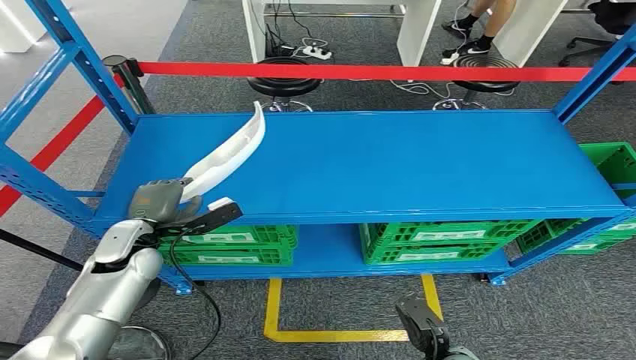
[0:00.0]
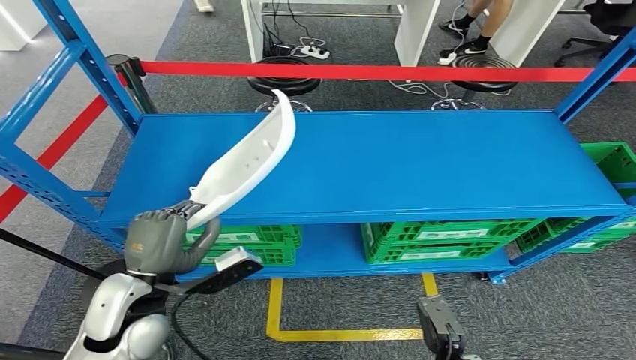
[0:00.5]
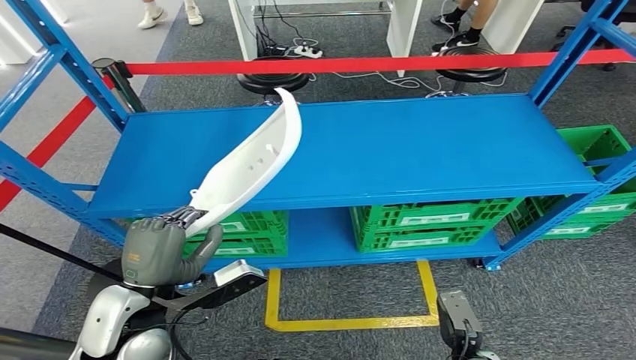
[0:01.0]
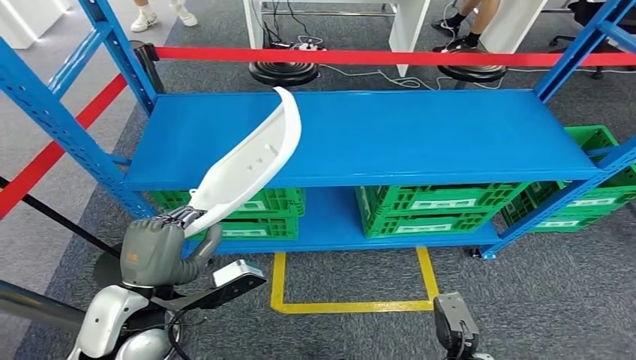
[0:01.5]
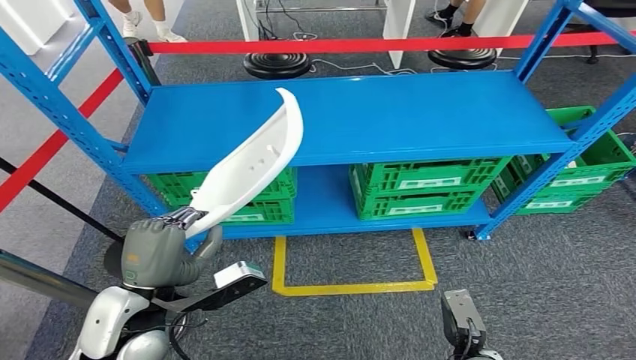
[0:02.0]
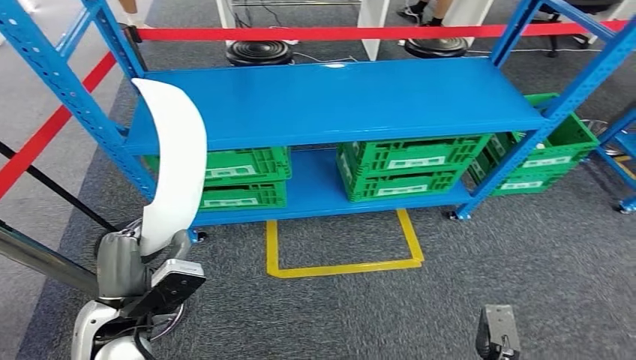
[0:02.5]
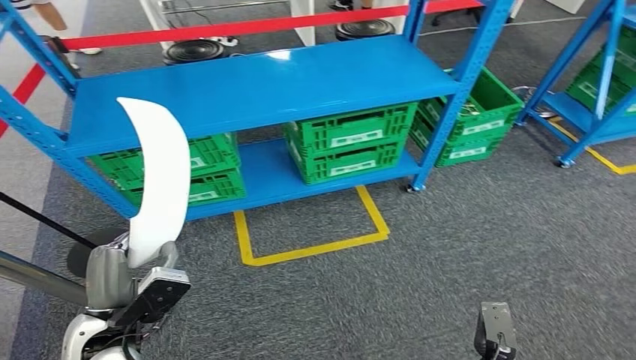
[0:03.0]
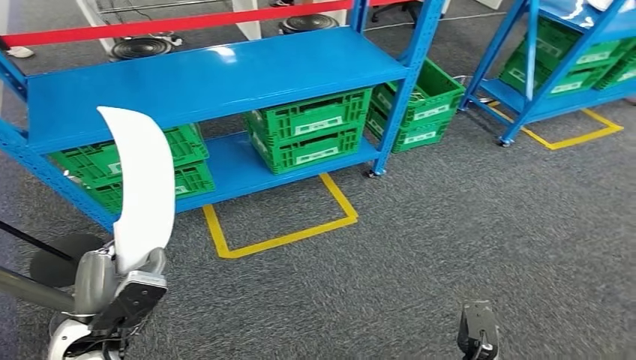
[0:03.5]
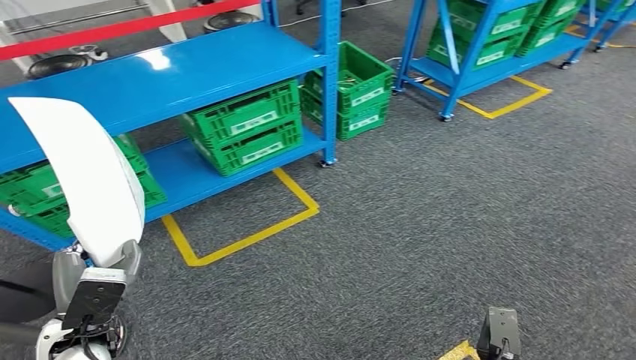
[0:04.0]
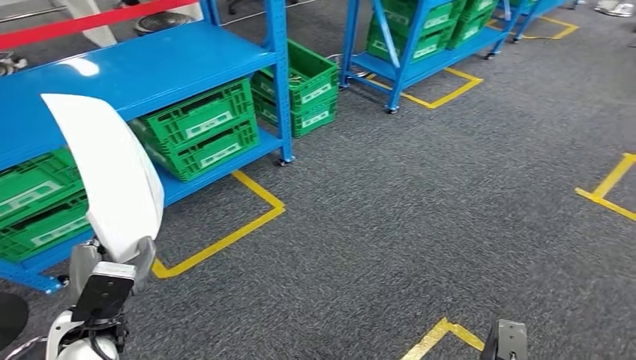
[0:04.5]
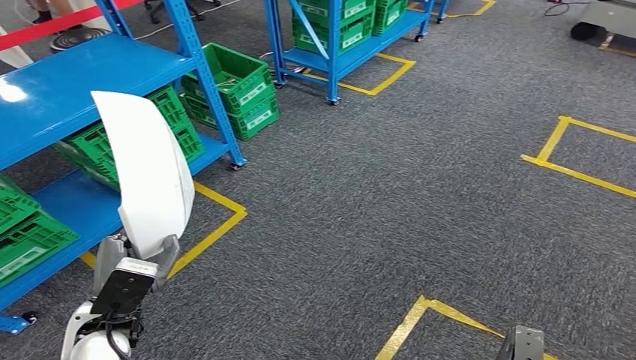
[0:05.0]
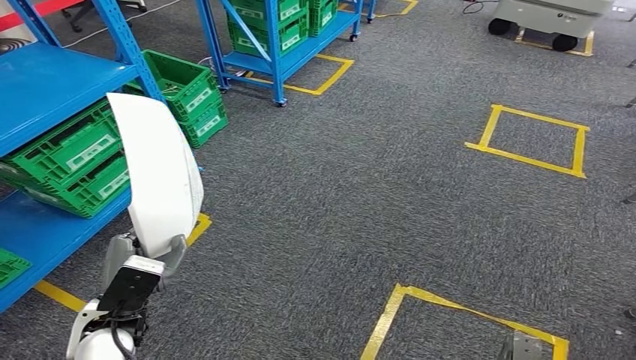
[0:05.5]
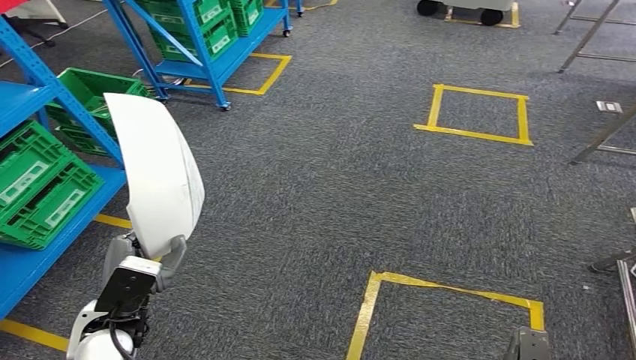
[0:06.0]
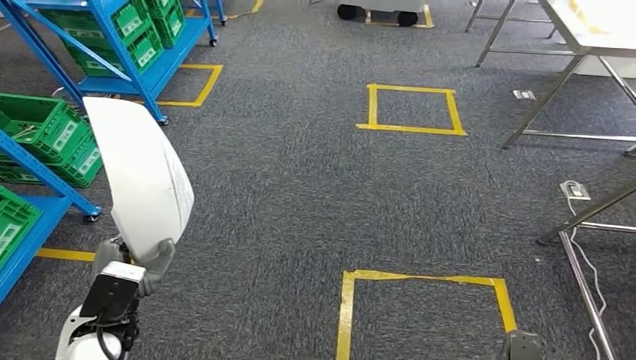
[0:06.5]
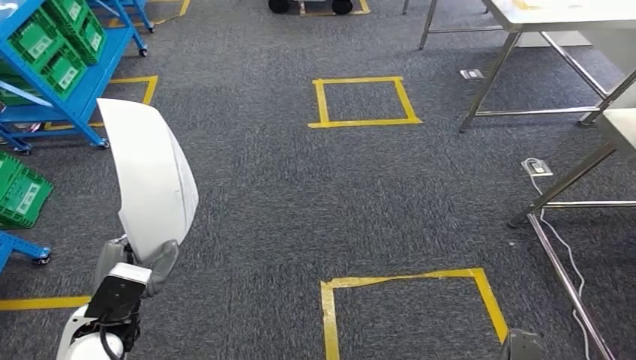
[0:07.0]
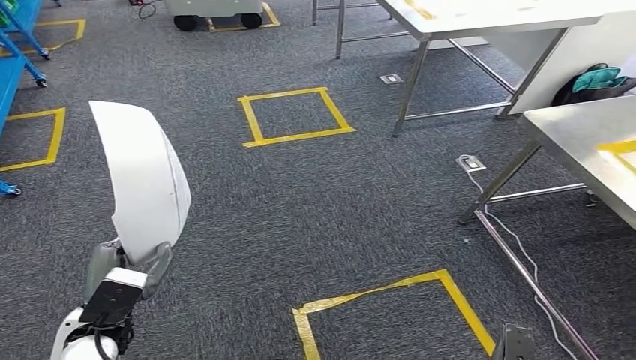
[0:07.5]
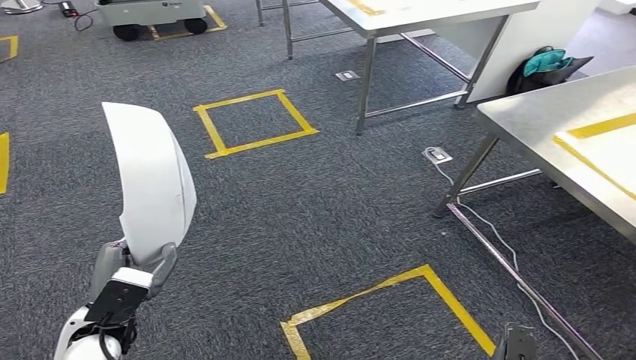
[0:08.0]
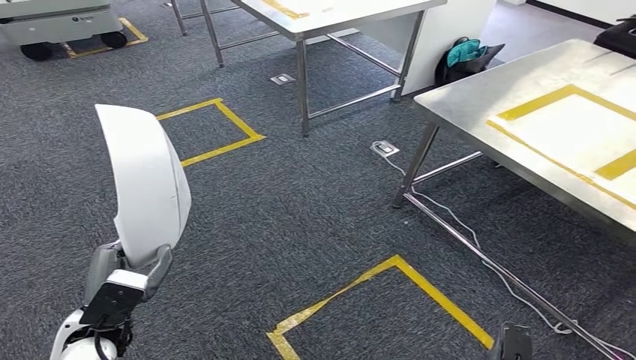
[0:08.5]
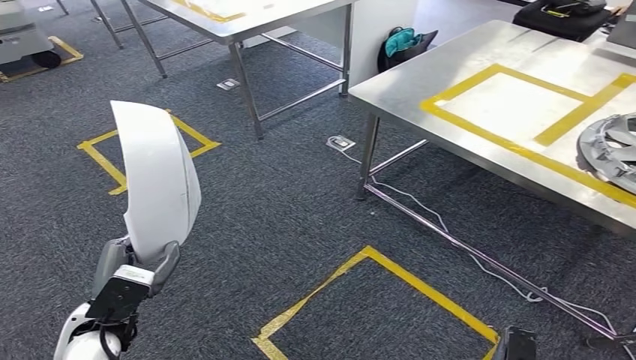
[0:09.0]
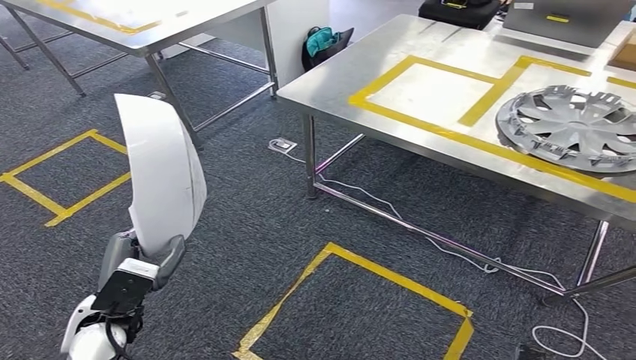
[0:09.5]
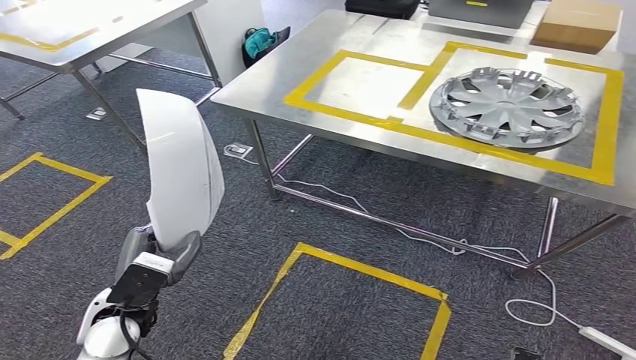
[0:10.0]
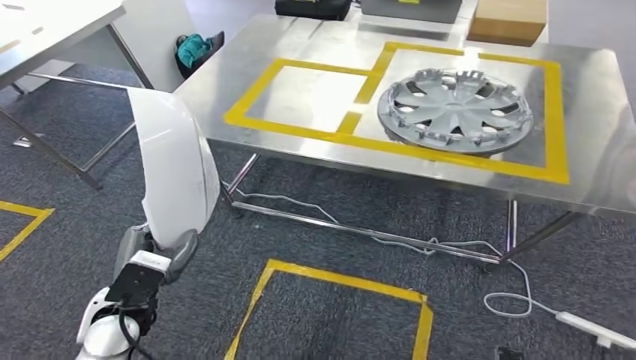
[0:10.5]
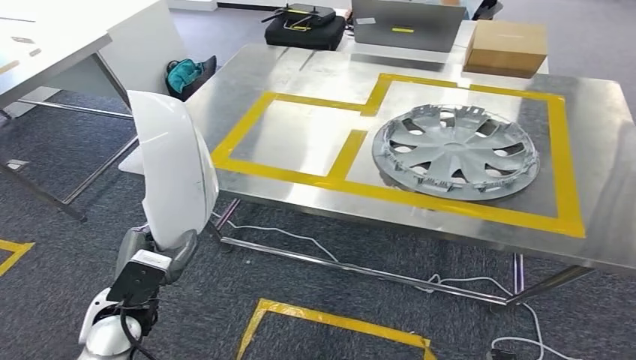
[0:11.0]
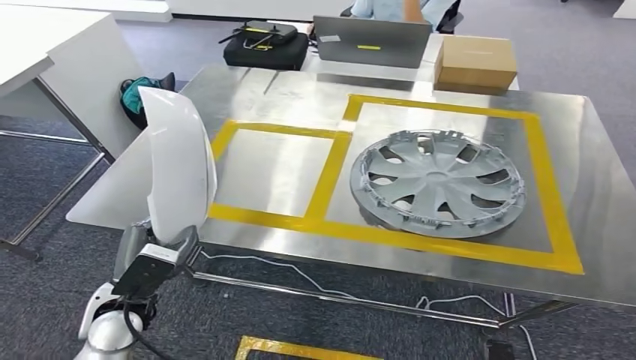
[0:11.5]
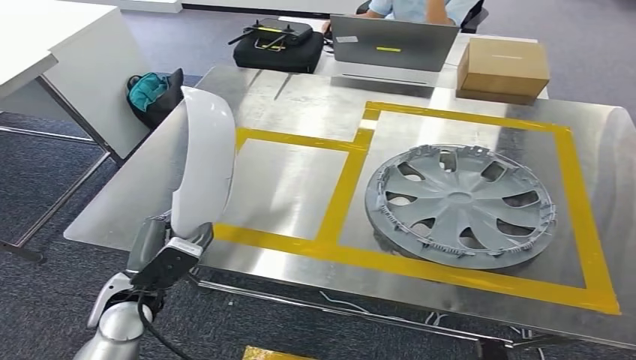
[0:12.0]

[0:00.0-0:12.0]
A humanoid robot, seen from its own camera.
Step, 0:00.0 to 0:02.0: Pick up the small component from the shelf.
Step, 0:02.5 to 0:11.5: Move the small component to the workbench.

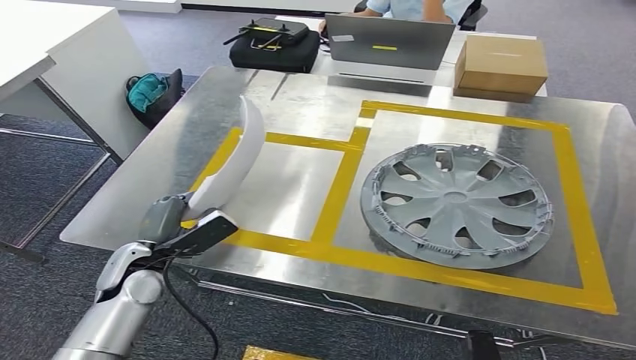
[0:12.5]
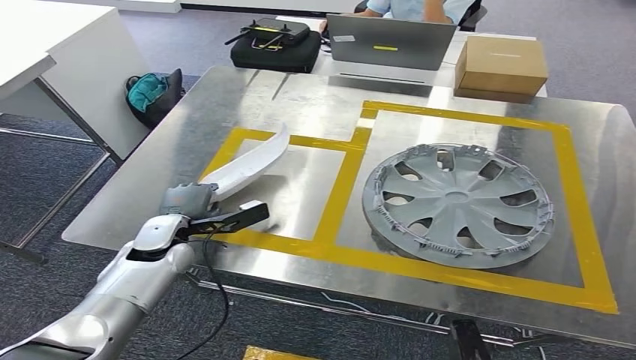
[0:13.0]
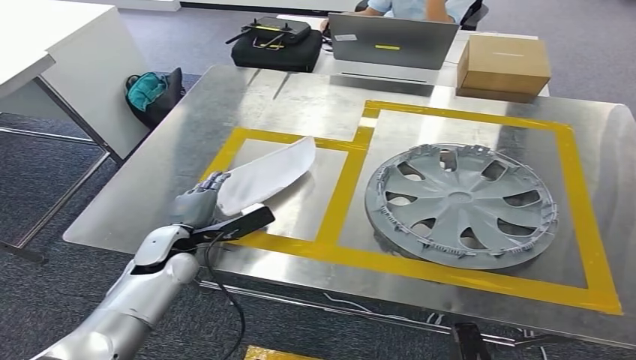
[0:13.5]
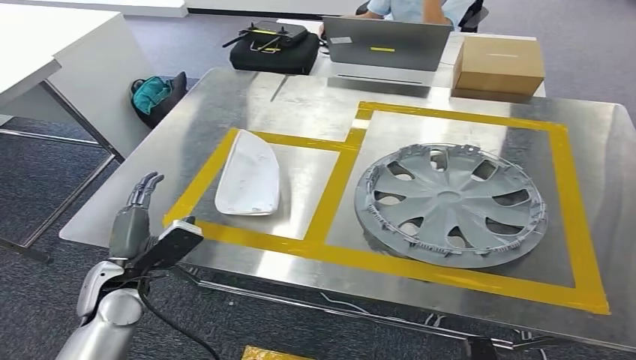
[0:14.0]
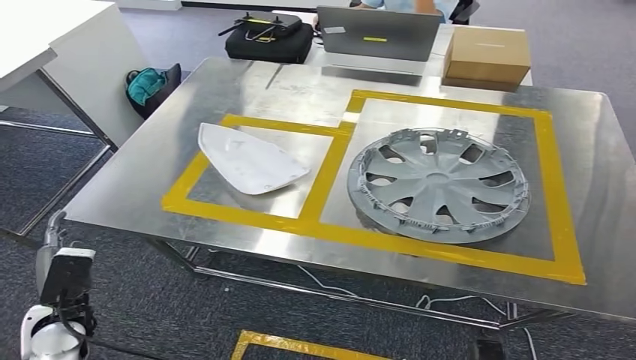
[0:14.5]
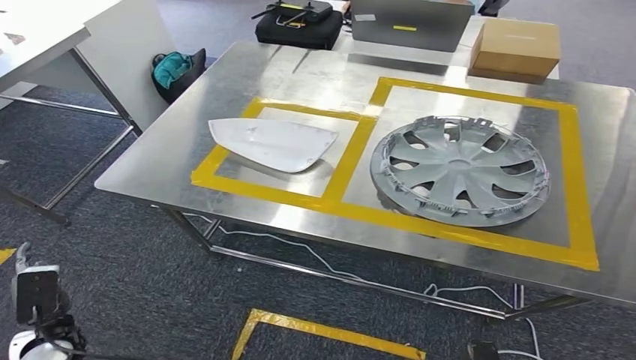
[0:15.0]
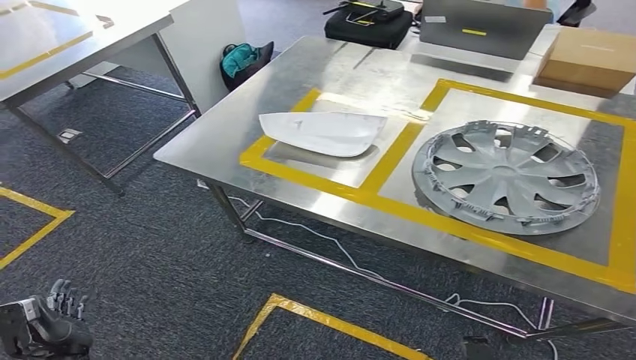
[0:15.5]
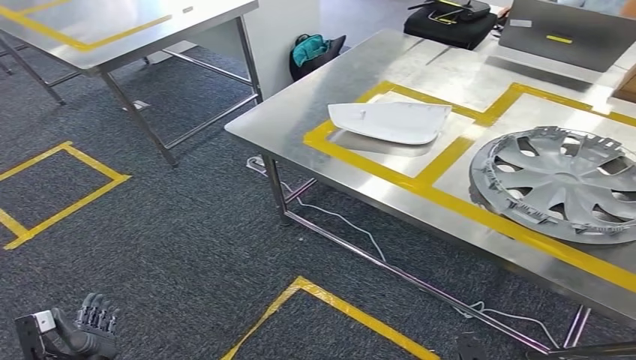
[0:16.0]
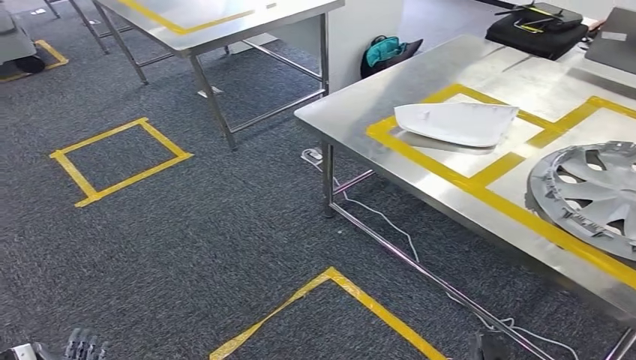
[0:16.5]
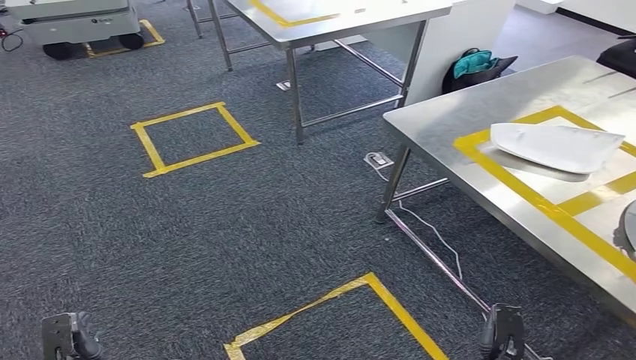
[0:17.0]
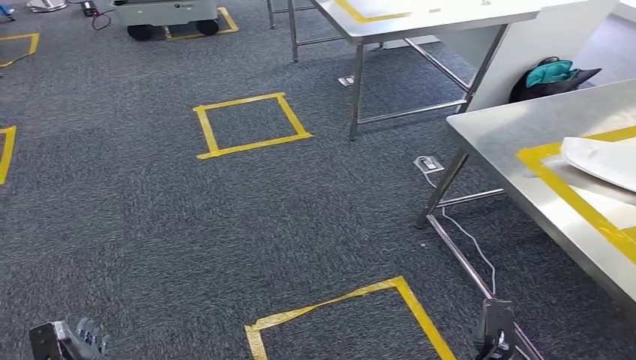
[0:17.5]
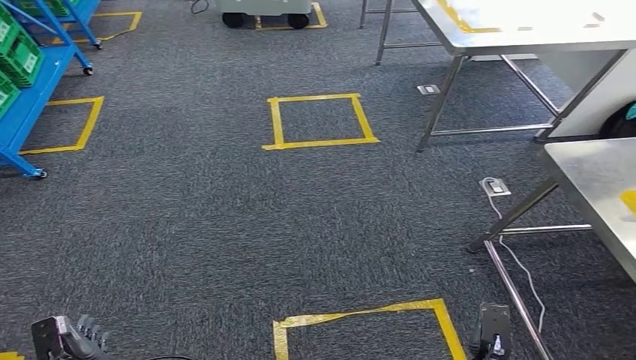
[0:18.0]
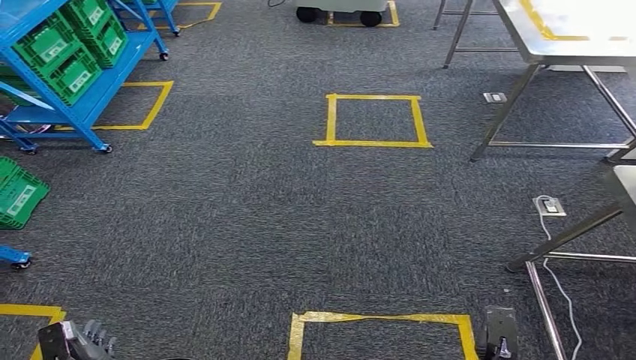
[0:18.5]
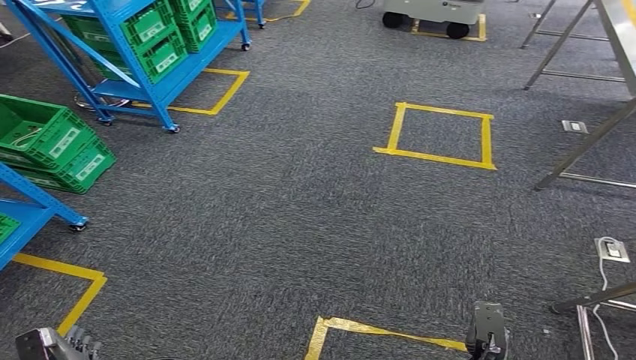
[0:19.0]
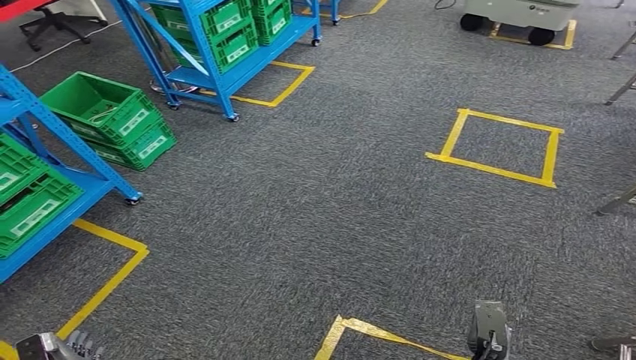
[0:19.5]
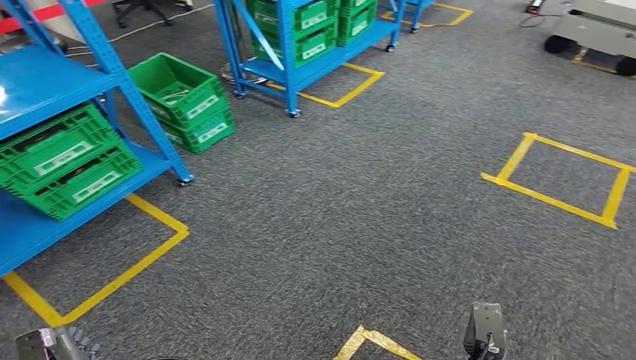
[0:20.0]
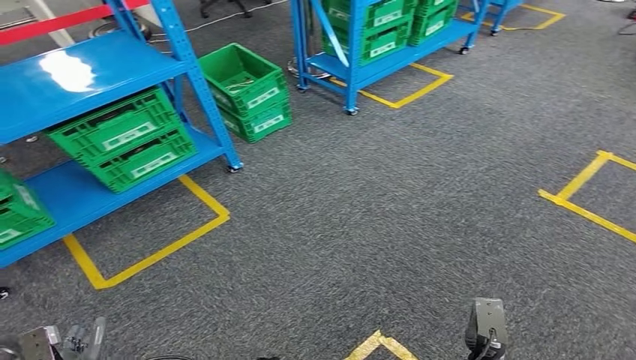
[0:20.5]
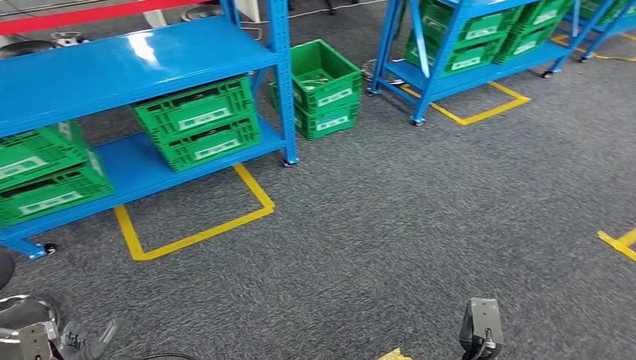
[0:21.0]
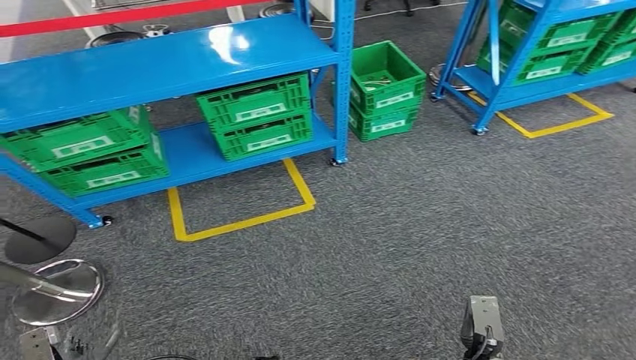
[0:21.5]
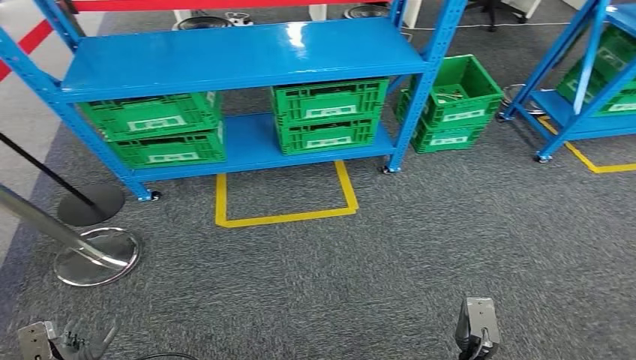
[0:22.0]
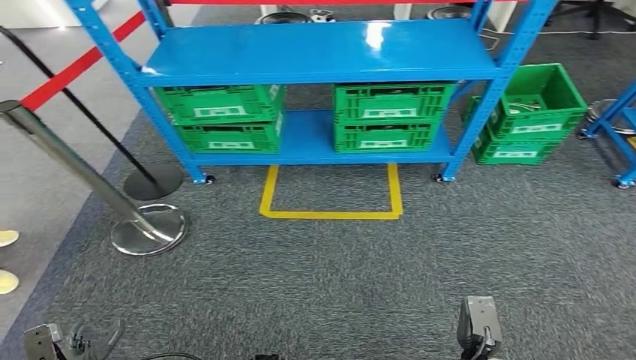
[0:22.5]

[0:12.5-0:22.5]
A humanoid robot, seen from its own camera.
Step, 0:12.5 to 0:15.5: Insert the small component into the corresponding slot on the workbench.
Step, 0:16.0 to 0:22.5: Move to the initial position at the workbench.
